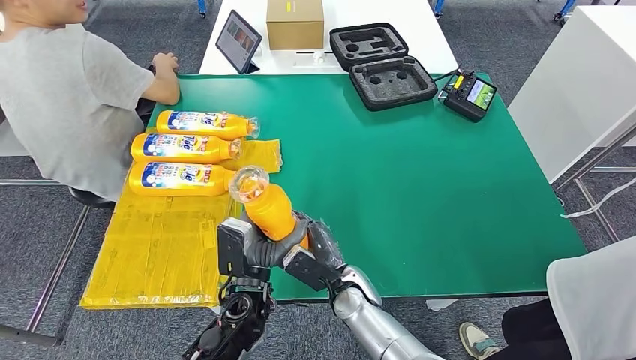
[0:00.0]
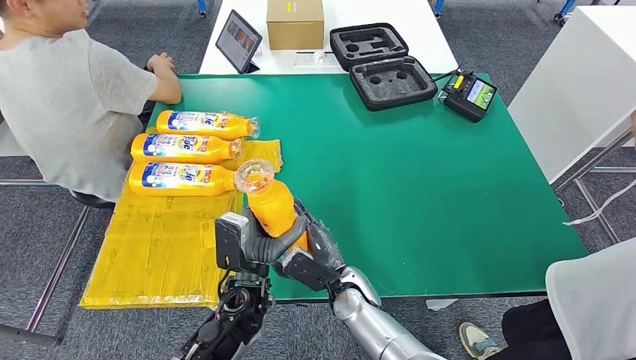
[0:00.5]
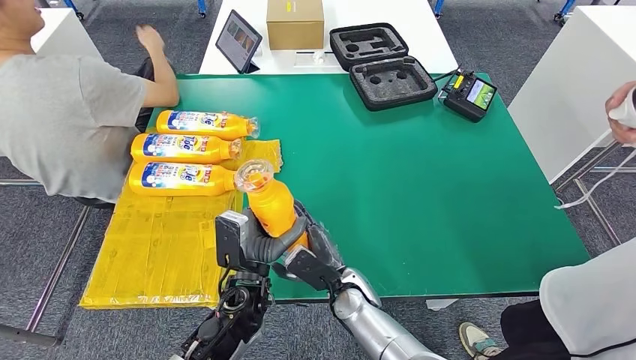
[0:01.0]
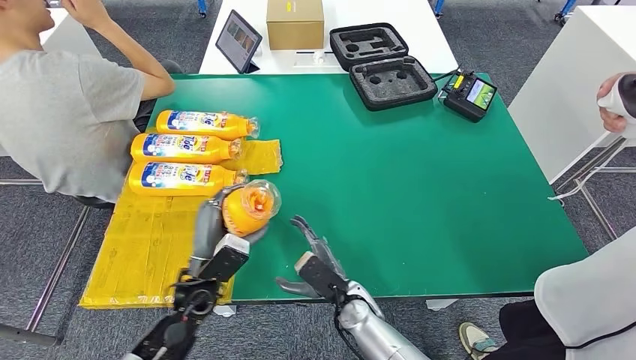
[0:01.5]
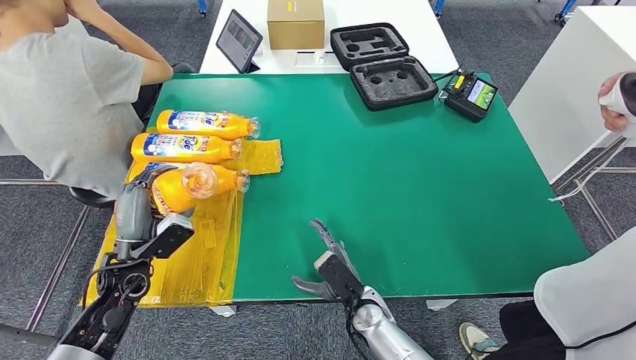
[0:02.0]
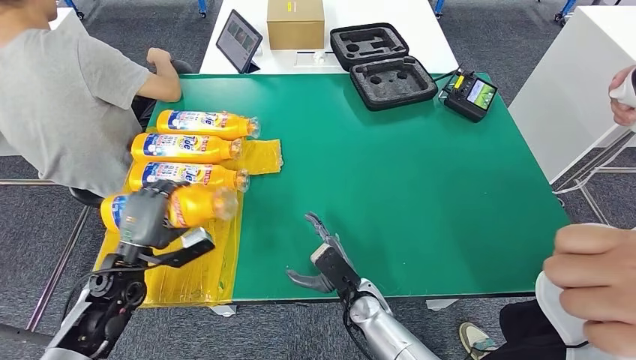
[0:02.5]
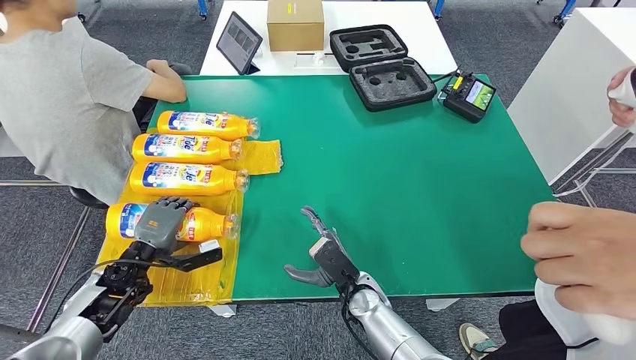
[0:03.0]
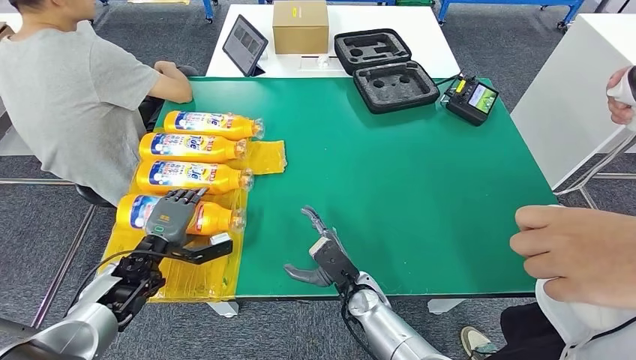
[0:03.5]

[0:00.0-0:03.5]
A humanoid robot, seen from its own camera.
Step, 0:00.0 to 0:03.5: Flip the bottle to face forward.
0:00.0 to 0:02.0: The right hand ends up roughly 5 cm from where it was; the left hand is displaced to the left by some 25 cm.
